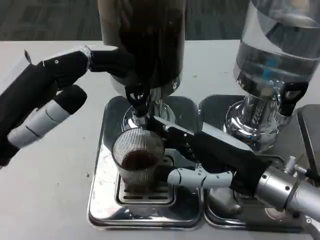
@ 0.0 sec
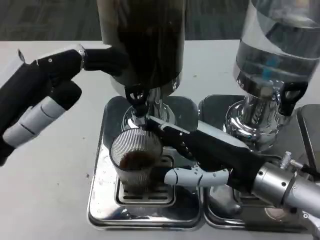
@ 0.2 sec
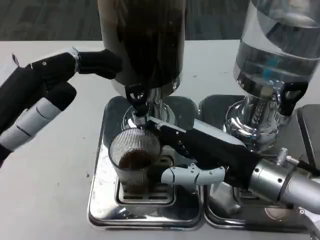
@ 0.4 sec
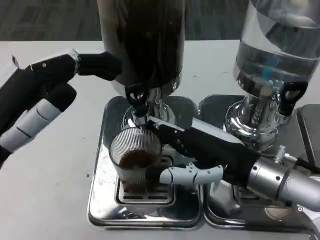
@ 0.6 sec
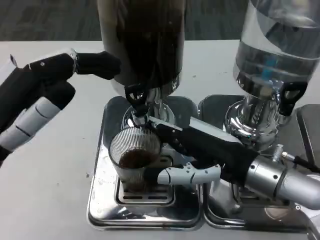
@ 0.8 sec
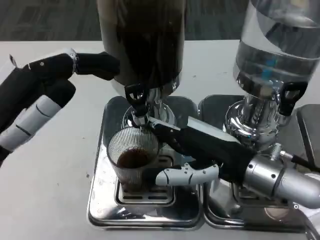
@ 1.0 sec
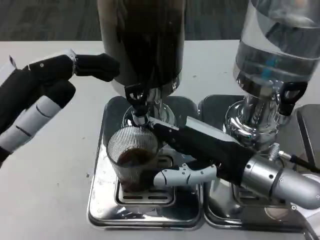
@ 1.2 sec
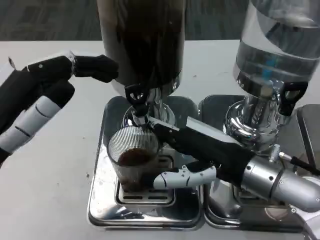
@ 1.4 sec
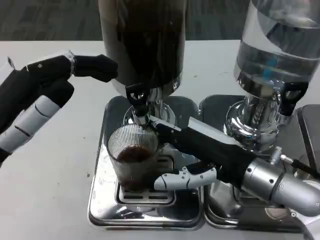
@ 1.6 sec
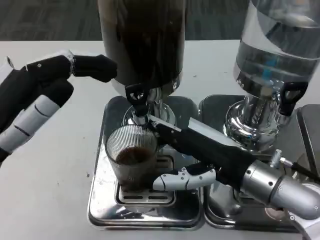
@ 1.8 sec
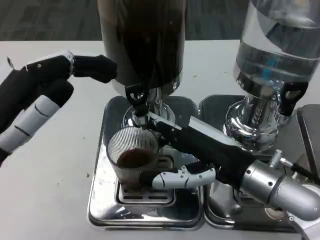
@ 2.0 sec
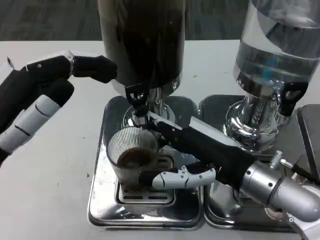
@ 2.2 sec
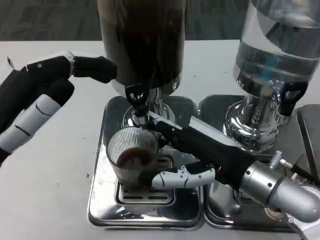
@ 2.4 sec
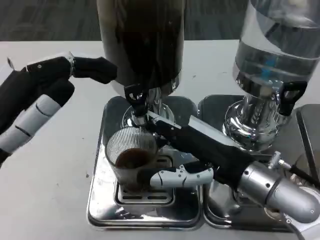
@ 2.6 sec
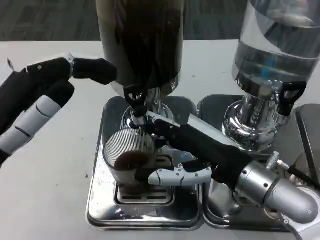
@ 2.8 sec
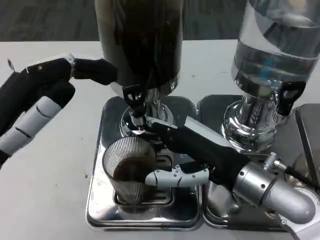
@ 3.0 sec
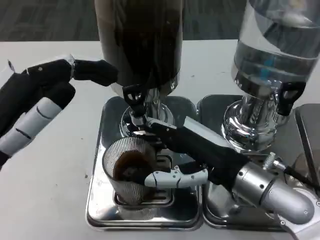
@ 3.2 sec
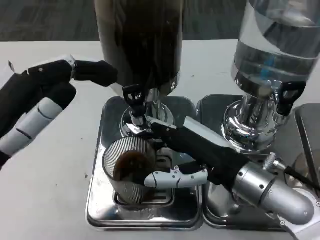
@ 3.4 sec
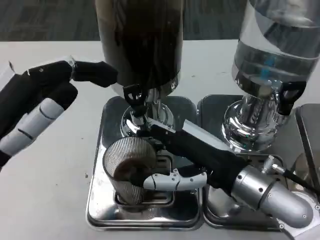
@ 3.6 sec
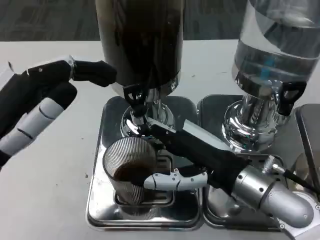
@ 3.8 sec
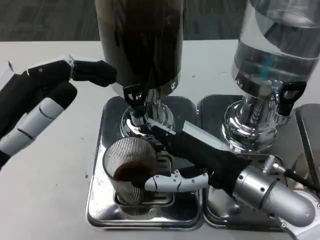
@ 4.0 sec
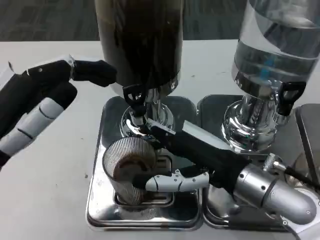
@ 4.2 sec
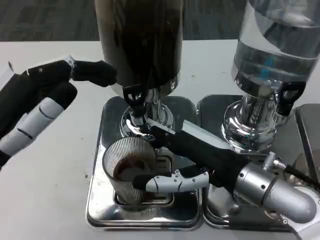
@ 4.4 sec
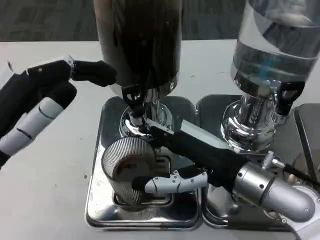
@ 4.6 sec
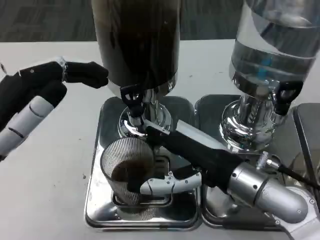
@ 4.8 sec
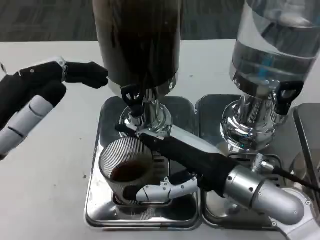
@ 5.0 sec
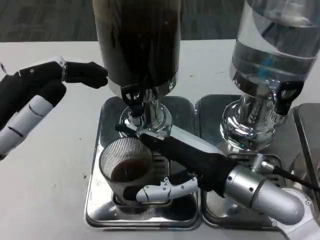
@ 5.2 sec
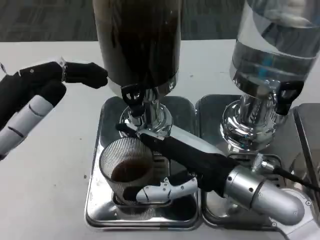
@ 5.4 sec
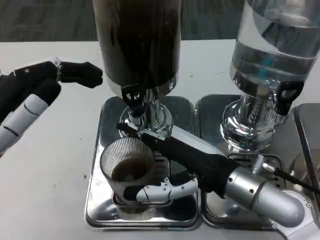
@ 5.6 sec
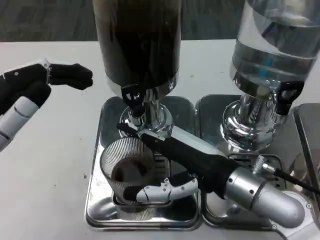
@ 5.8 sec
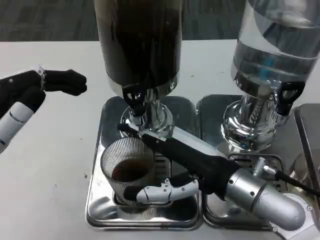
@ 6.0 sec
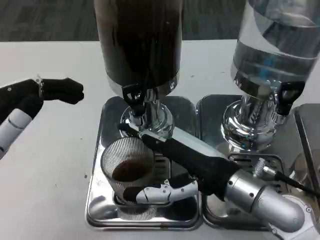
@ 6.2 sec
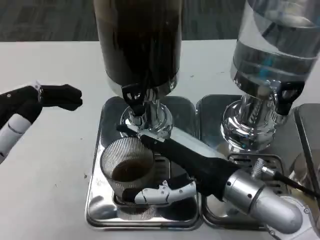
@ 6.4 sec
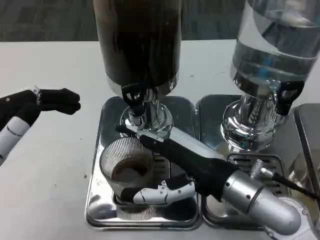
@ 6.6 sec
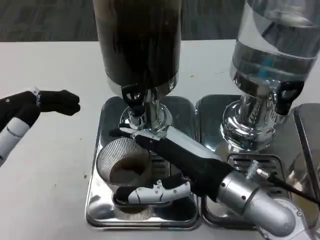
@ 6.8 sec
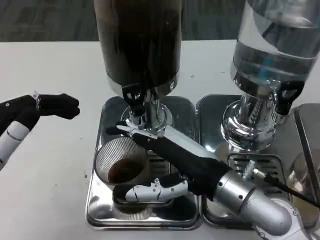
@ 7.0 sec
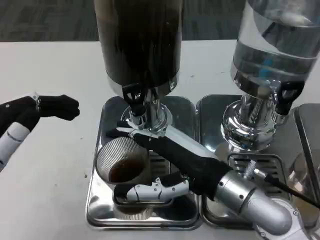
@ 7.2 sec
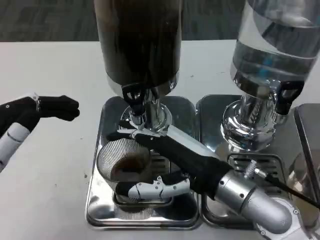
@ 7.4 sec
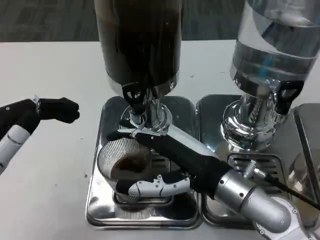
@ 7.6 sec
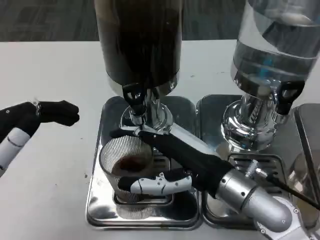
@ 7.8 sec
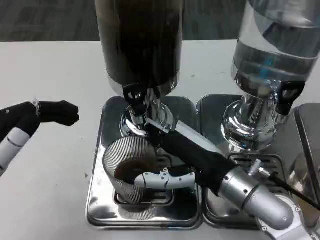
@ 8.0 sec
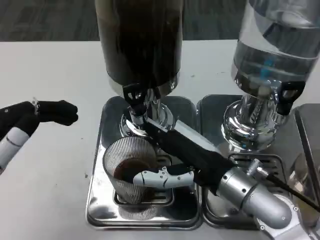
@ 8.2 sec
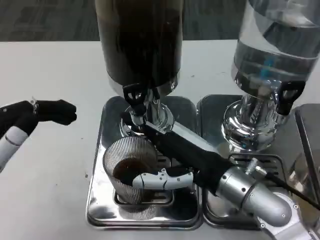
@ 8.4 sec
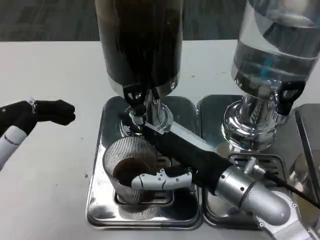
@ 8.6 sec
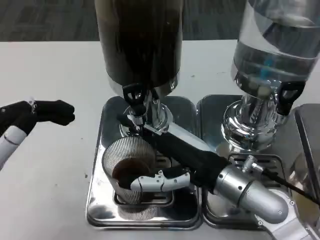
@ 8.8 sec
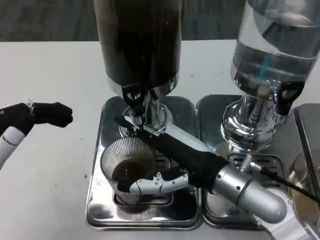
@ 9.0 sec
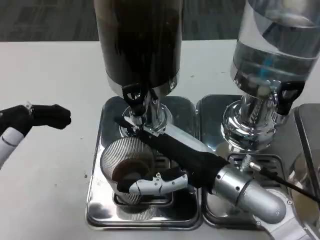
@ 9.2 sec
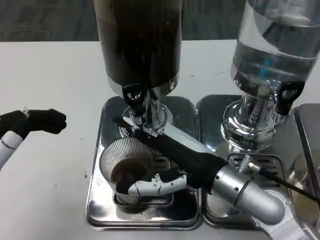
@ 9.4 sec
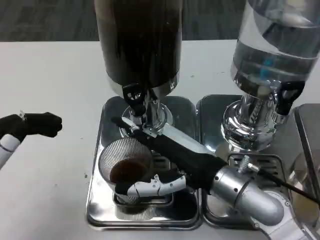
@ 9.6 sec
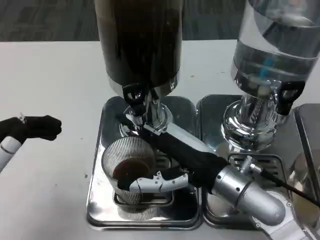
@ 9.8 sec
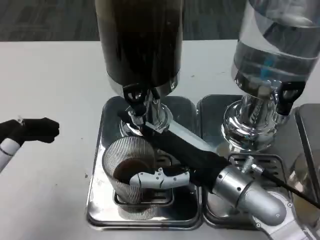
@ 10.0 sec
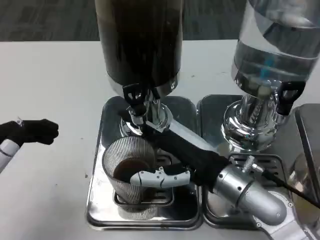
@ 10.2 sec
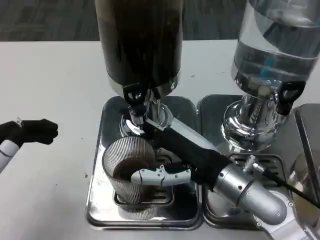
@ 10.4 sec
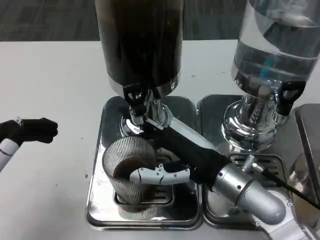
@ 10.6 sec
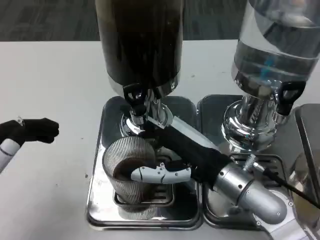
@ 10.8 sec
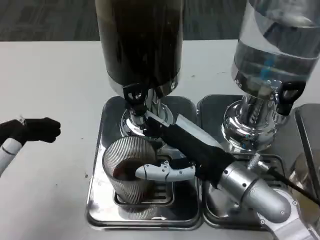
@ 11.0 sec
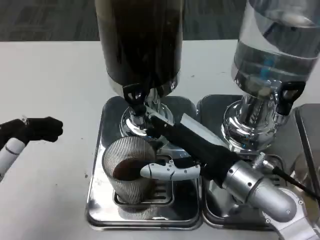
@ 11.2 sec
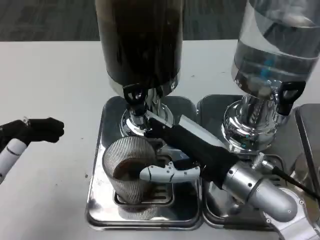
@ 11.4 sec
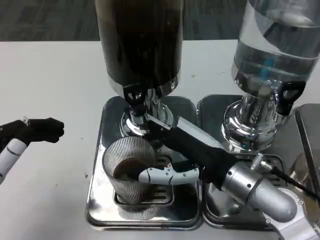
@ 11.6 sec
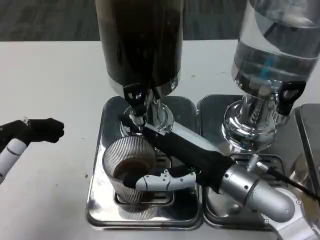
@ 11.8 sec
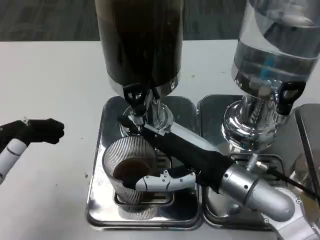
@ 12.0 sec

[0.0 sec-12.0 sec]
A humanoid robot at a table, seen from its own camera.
Task of the whole recording: Grasp the cup under the faucet to collect the drink, then remove the cup.
0.0 sec to 1.6 sec: The hands stay close to where they were, moving slightly.
3.0 sec to 4.4 sec: Both hands stay about where they are.
7.6 sec to 9.0 sec: Both hands stay put.
9.0 sec to 10.4 sec: There are only small adjustments of the hands.
10.4 sec to 12.0 sec: Both hands stay put.

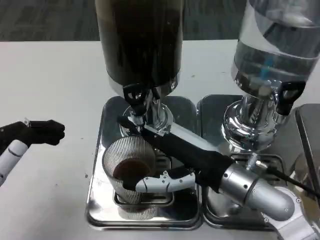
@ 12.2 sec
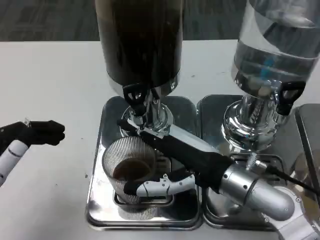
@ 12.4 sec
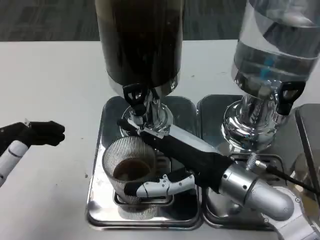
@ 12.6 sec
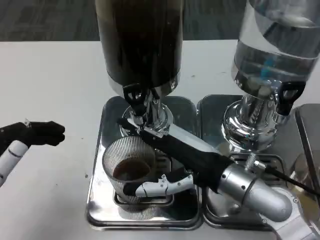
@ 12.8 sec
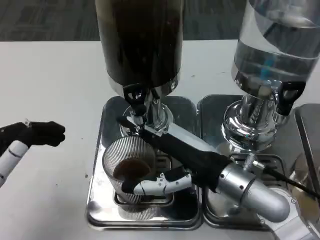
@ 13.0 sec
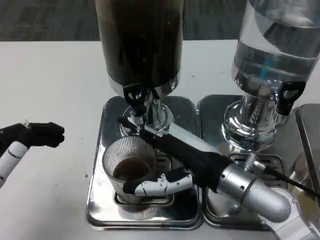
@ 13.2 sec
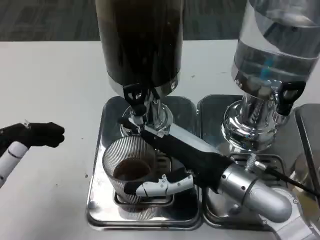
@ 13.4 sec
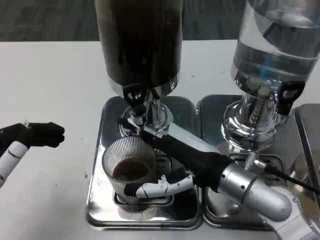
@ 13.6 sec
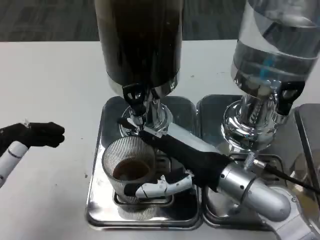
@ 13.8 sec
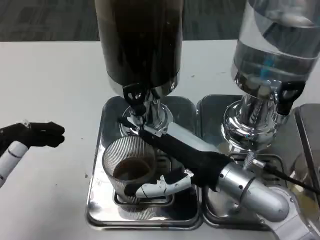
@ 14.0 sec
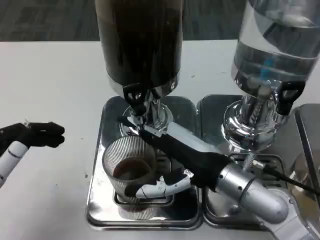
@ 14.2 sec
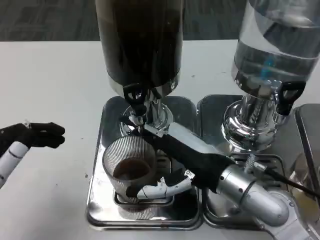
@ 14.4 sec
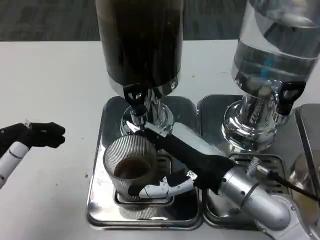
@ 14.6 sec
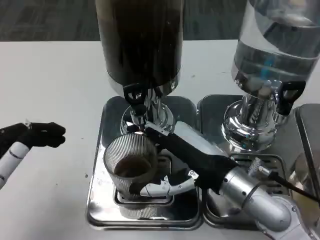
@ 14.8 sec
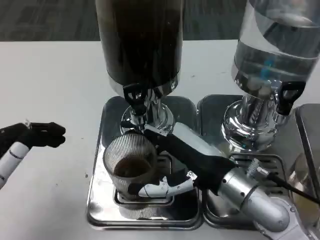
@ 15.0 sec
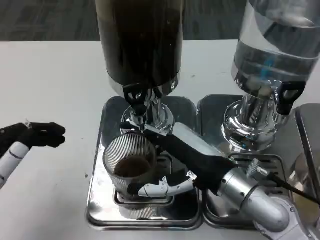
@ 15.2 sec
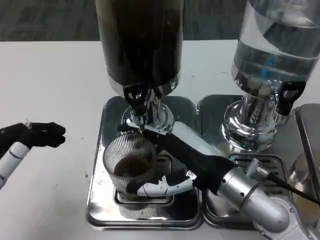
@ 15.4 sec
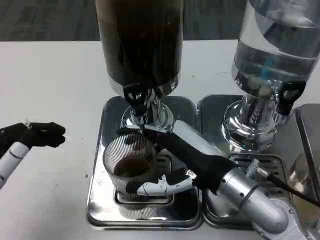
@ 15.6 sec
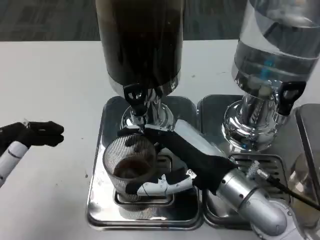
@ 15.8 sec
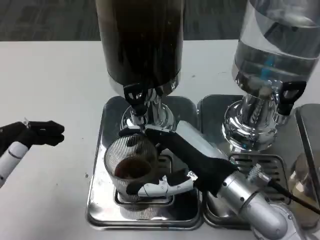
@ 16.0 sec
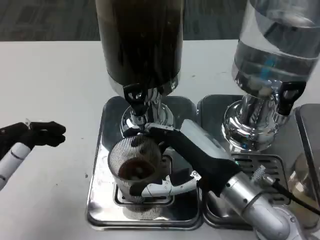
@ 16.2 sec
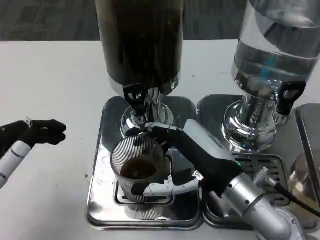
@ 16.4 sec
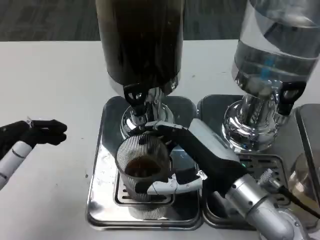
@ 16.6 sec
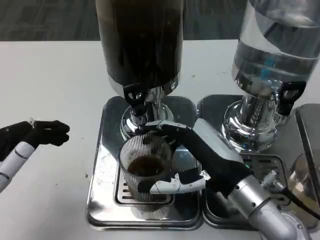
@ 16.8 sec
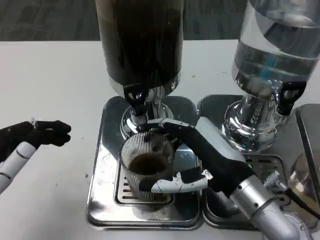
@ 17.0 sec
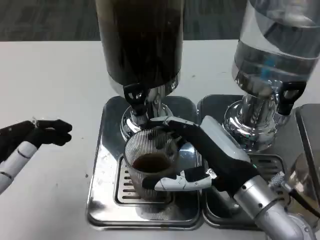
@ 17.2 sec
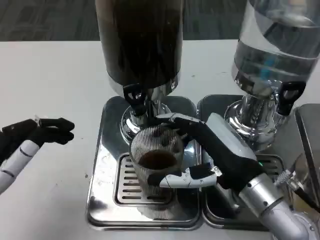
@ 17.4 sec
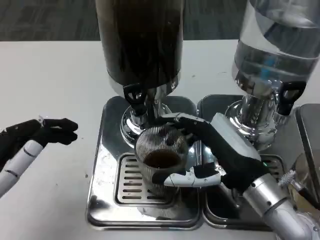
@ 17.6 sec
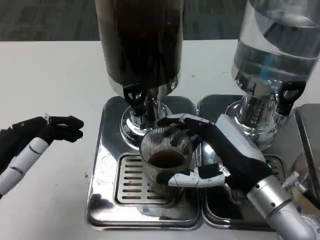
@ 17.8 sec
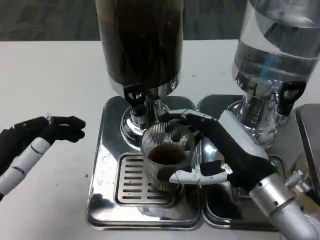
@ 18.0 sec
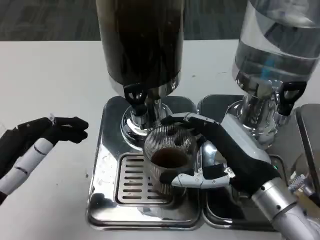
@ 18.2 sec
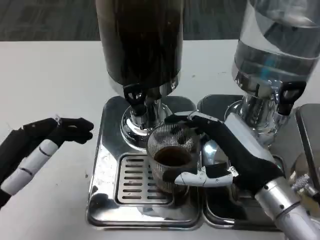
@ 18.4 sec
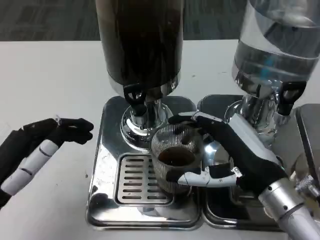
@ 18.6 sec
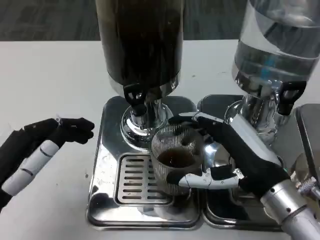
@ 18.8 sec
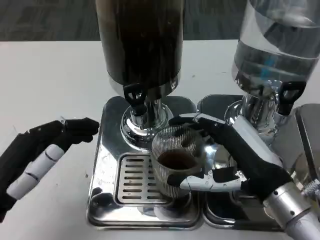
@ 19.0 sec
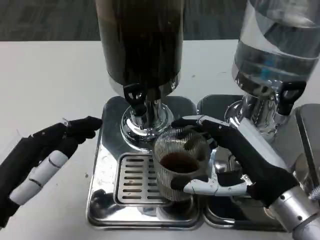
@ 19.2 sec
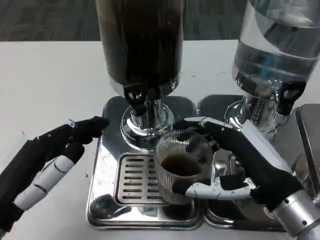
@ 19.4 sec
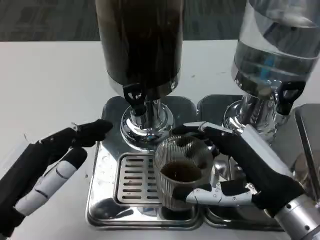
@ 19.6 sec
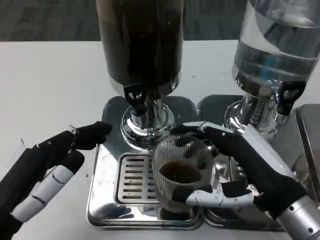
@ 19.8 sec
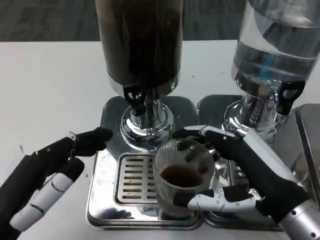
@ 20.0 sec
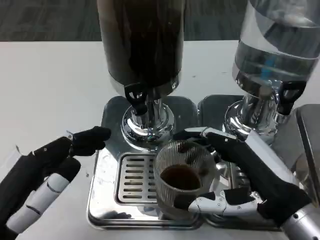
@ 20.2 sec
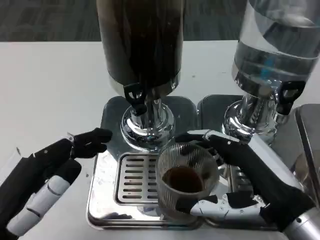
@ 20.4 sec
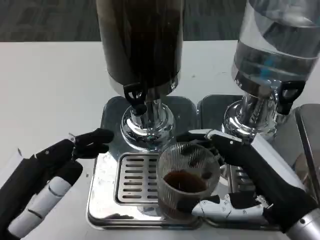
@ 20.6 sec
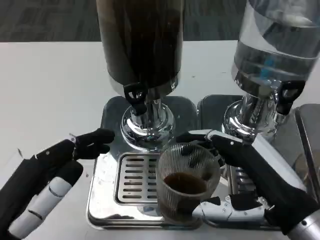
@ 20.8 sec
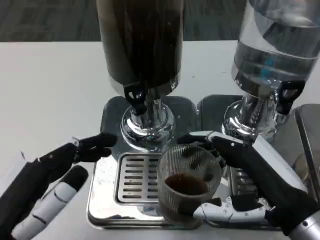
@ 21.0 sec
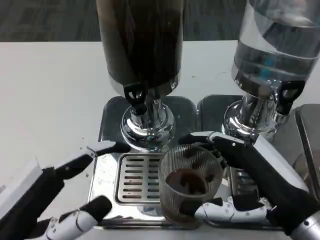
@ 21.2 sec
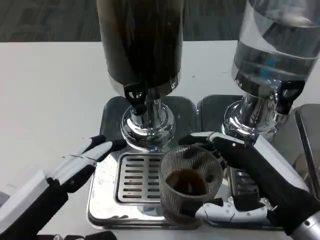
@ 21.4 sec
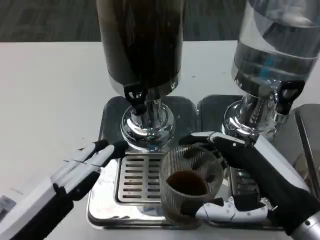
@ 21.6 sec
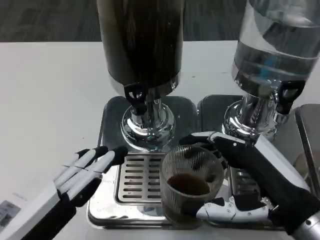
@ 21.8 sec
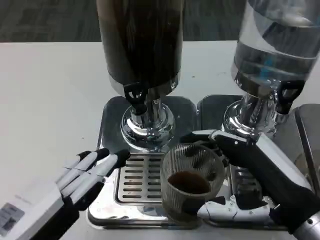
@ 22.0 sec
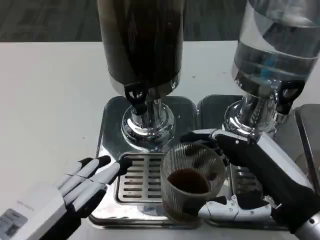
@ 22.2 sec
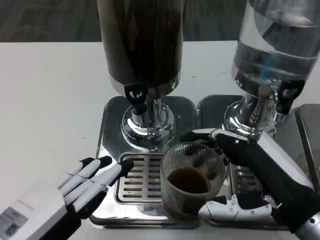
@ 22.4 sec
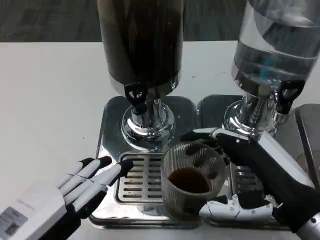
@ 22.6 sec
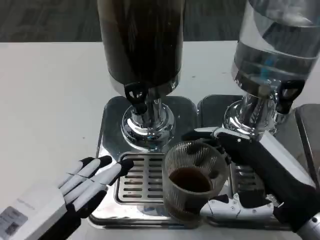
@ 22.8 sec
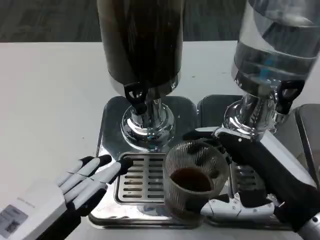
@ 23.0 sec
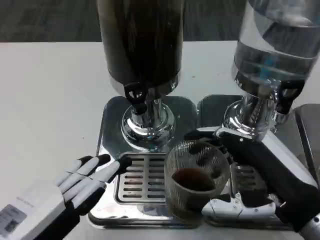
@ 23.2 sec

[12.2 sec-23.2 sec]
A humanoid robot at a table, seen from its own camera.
Task of the whole recording: Grasp the cup under the faucet to collect the drink, then remove the cup.
12.2 sec to 15.4 sec: The hands make only small movements.
15.4 sec to 17.0 sec: The hands stay close to where they were, moving slightly.
18.4 sec to 20.0 sec: The right hand moves roughly 5 cm.
21.6 sec to 23.2 sec: There are only small adjustments of the hands.
